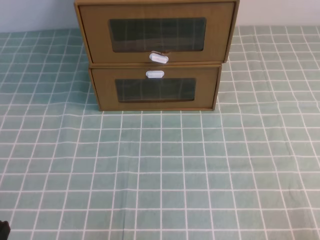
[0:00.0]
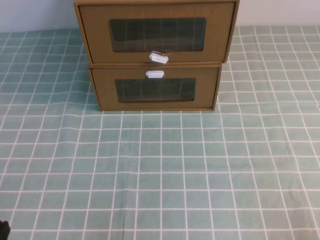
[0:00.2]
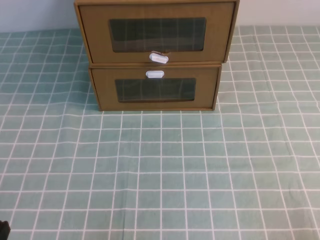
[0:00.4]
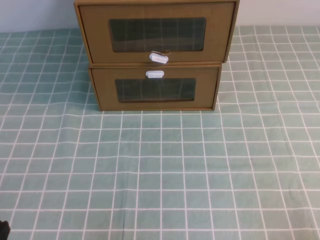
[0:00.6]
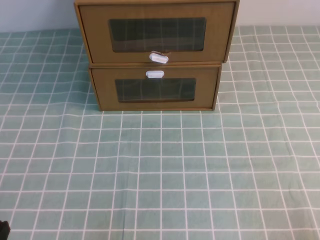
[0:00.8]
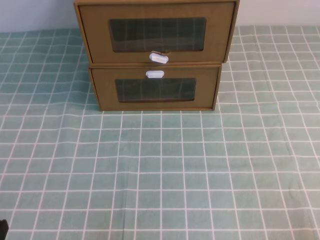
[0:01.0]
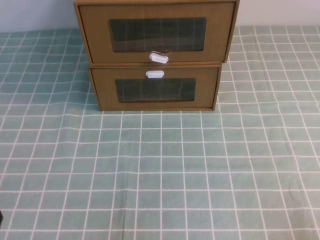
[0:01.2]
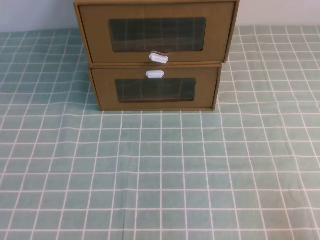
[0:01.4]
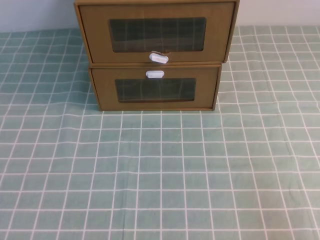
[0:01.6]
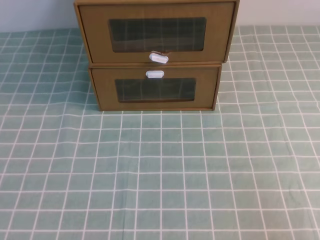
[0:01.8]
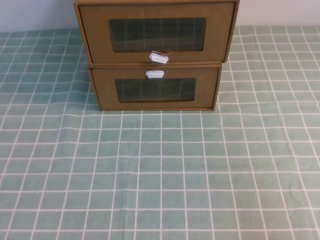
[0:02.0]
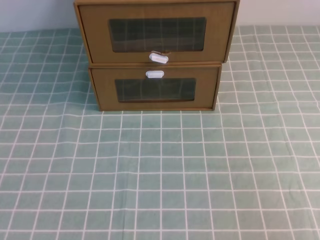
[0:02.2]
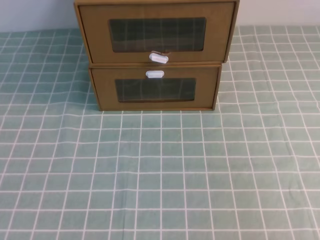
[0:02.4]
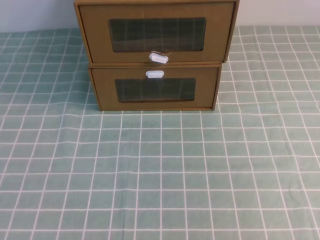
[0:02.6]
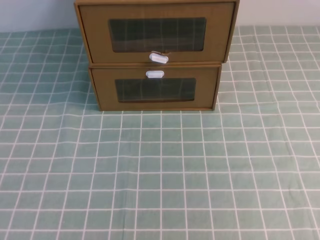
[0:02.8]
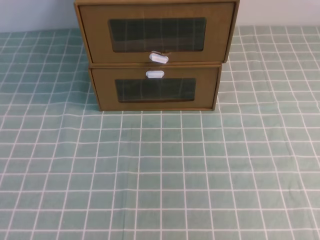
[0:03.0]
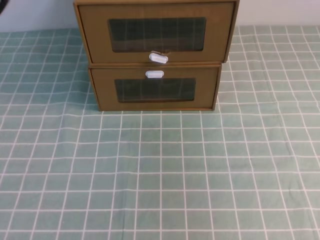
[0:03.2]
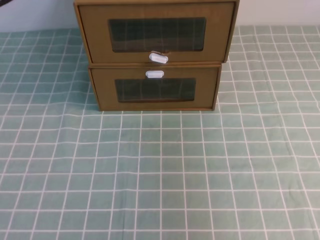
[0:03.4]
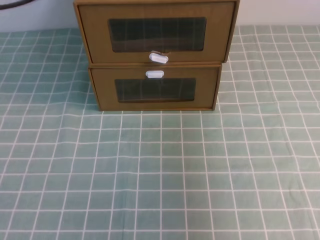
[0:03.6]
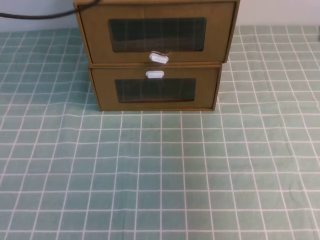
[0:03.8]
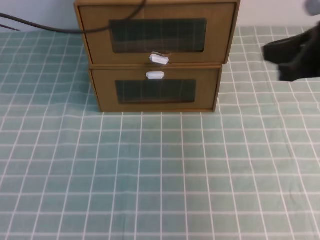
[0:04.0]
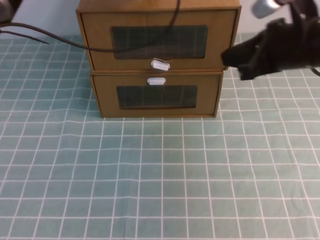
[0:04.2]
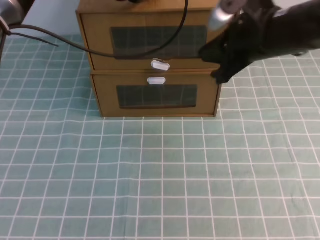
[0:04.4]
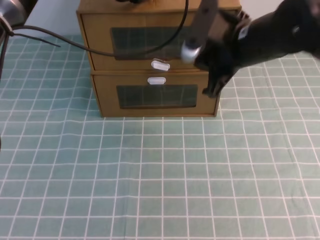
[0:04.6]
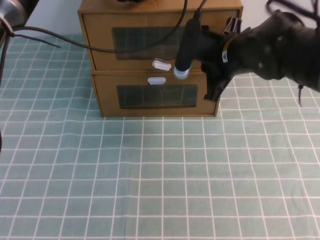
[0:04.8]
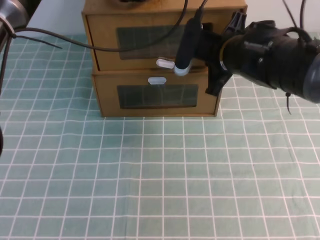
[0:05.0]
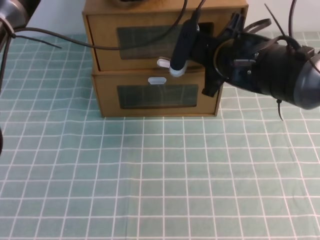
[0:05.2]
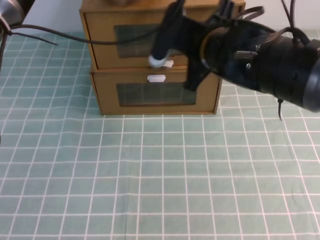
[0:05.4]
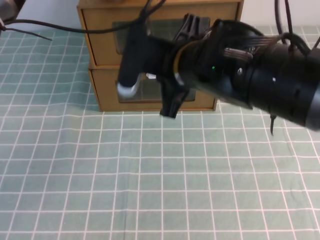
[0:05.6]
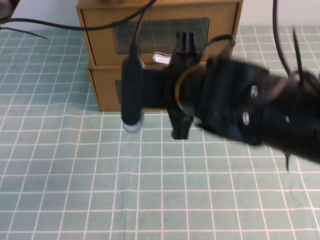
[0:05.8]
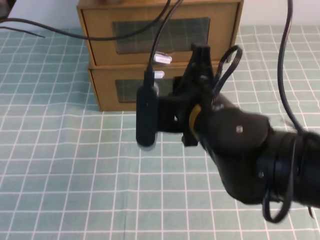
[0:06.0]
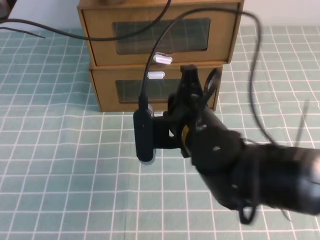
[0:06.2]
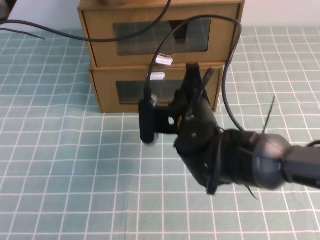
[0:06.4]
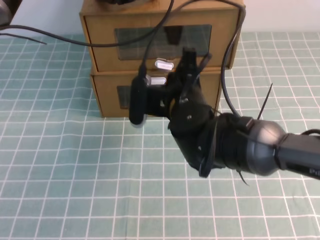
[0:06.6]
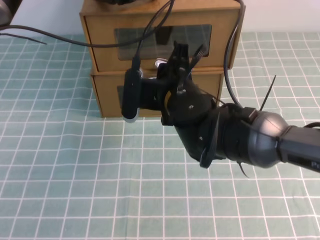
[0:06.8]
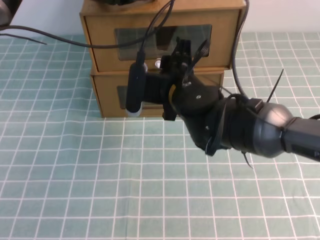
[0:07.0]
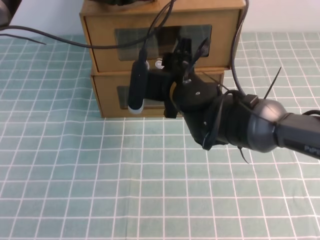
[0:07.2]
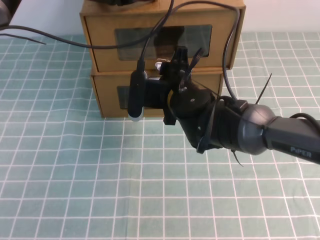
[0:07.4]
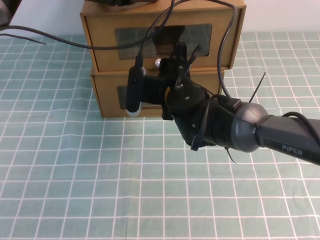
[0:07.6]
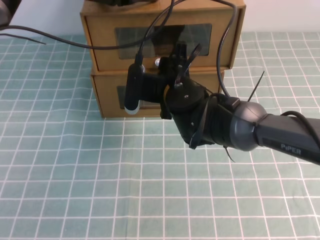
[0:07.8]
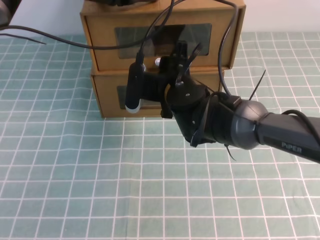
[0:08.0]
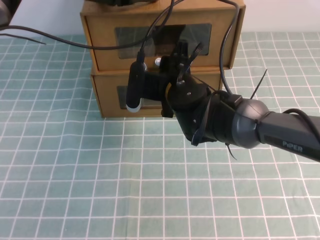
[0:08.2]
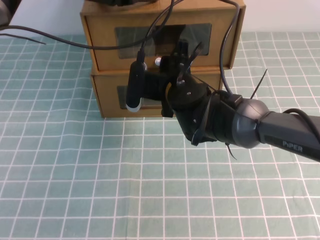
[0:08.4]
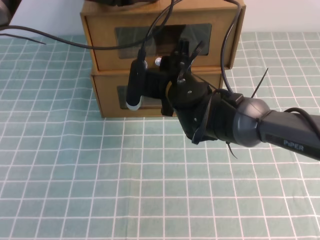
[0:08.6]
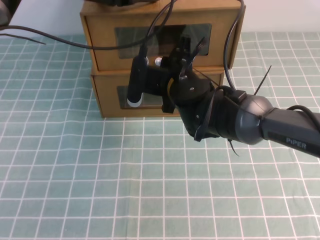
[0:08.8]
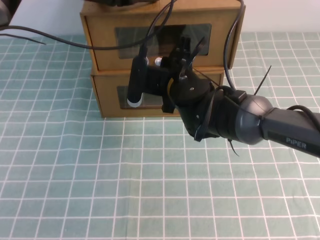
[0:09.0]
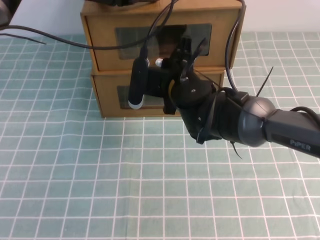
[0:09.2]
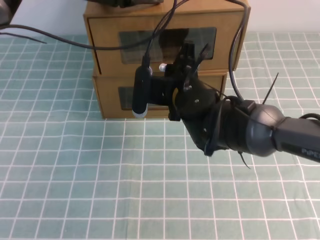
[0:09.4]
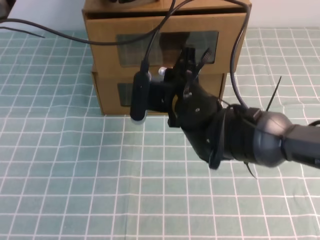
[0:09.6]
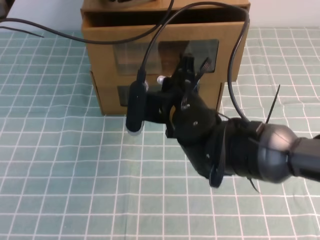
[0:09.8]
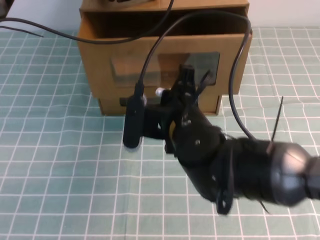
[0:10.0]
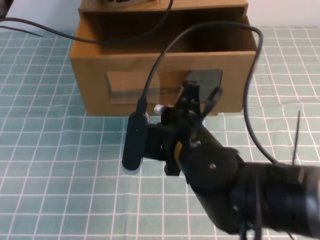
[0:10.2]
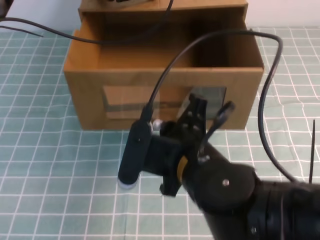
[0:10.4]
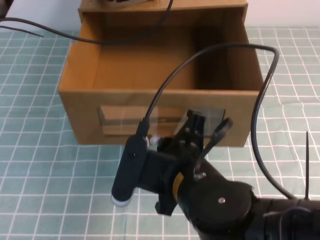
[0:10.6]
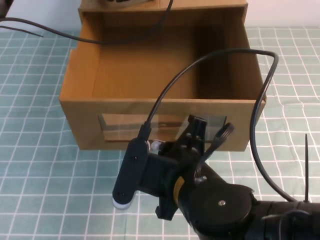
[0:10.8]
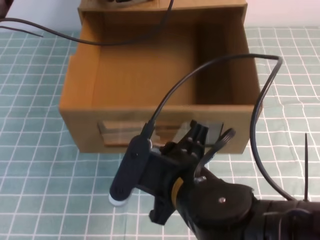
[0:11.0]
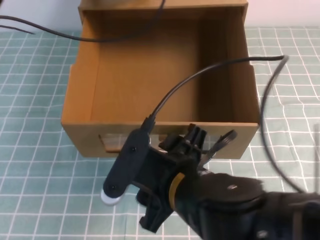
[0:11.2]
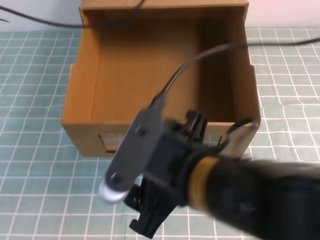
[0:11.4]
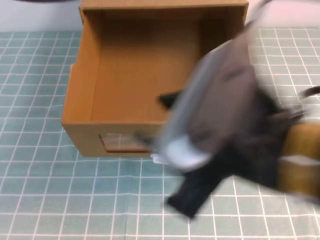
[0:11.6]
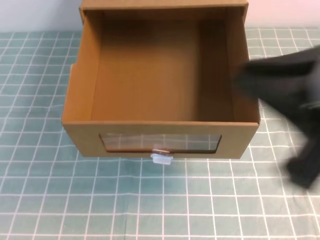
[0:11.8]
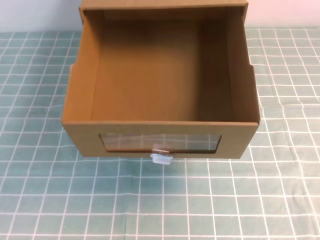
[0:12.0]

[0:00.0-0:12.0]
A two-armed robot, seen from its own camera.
Task of the whole recording: open the shoebox on the cyan tablecloth.
3.0 to 4.4 s: The left gripper moves forward and to the right, about 40 cm. Meanwhile the right gripper shifts roughly 35 cm forward, to the left and downward.
4.4 to 6.0 s: The right gripper heads to the left and backward, covering roughly 15 cm.
6.0 to 7.6 s: The right gripper is displaced forward and downward by roughly 15 cm, and opens up.
7.6 to 9.0 s: The right gripper closes its fingers.
9.0 to 10.4 s: The right gripper goes roughly 20 cm backward.
10.4 to 12.0 s: The right gripper shifts roughly 30 cm to the right, upward and backward, and opens, then closes once more. The left gripper heads backward and upward, covering roughly 35 cm.

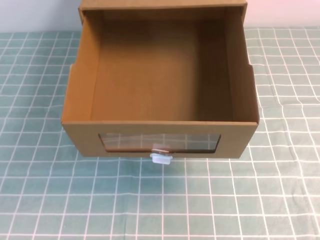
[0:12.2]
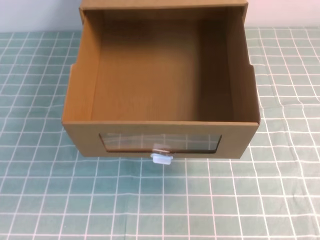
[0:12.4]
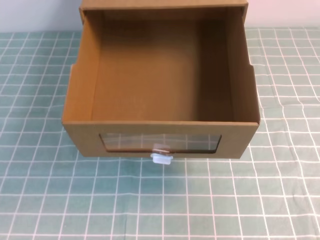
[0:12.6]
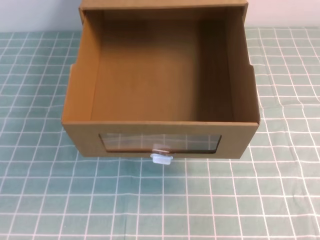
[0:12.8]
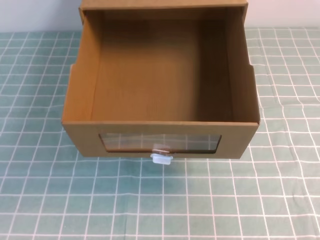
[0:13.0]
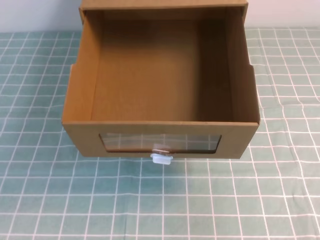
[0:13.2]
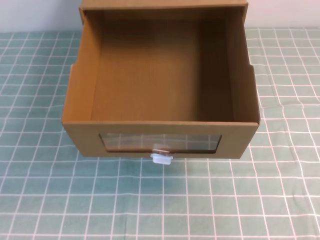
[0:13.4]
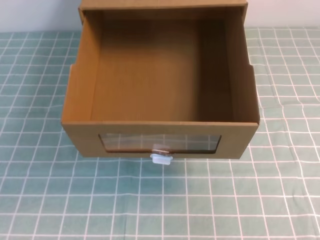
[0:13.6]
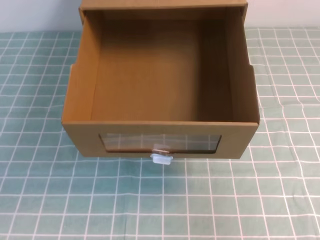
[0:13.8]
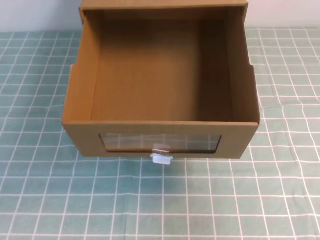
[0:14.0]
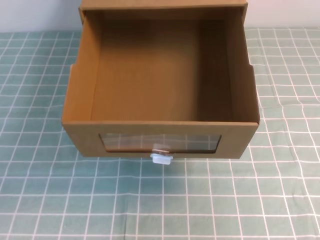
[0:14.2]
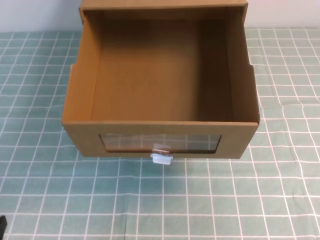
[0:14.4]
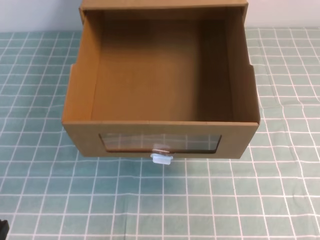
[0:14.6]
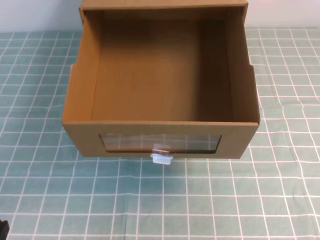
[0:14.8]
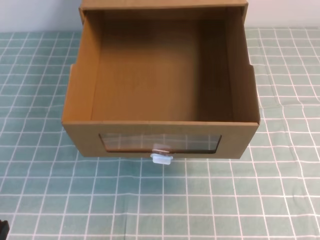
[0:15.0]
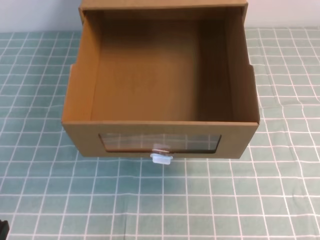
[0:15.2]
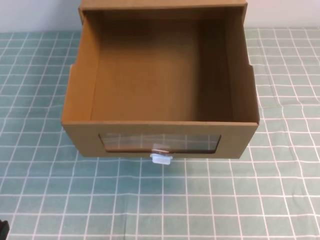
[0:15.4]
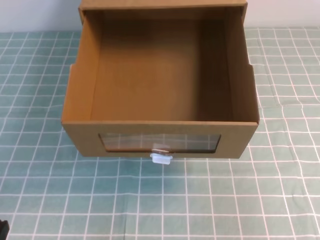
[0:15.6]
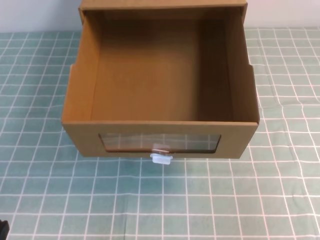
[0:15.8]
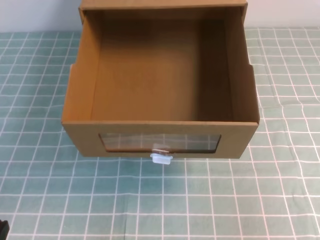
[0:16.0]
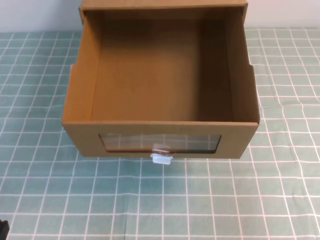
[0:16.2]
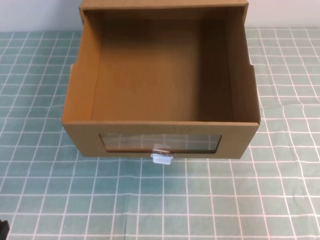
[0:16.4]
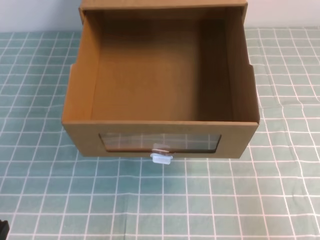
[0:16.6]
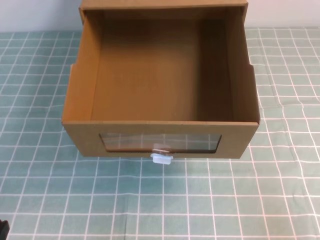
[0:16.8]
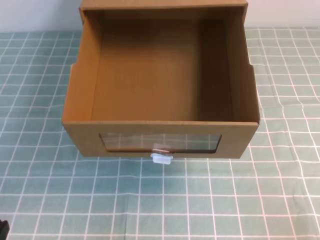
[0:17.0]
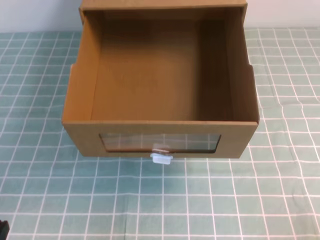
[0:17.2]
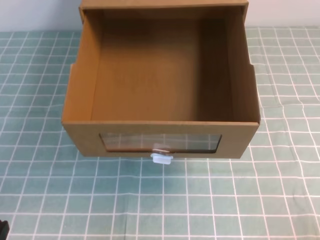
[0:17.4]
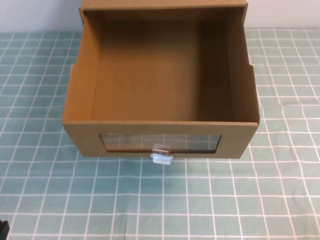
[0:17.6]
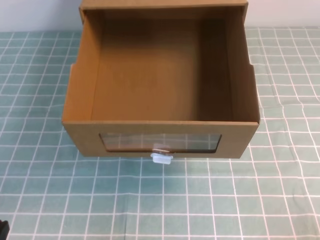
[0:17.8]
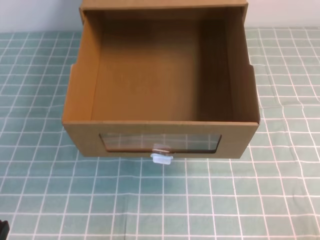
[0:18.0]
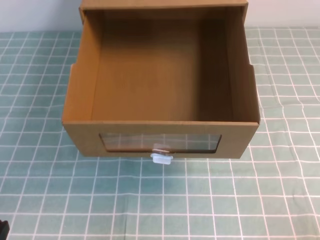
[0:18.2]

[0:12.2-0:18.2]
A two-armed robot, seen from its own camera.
Task of the whole recording: open the shoebox on the cyan tablecloth.
12.2 to 13.8 s: The right gripper goes about 5 cm downward; the left gripper travels downward by approximately 25 cm.
16.6 to 18.2 s: The right gripper moves downward, approximately 10 cm.

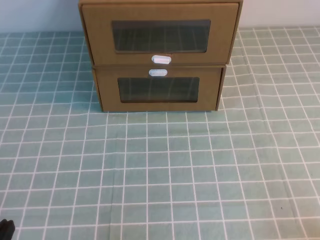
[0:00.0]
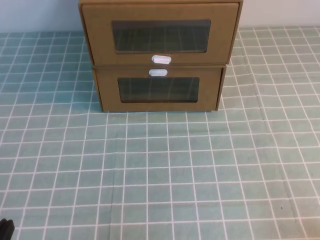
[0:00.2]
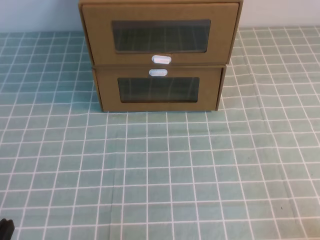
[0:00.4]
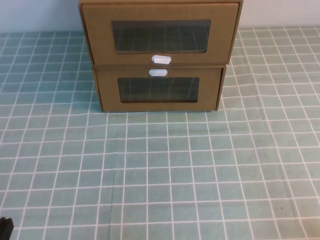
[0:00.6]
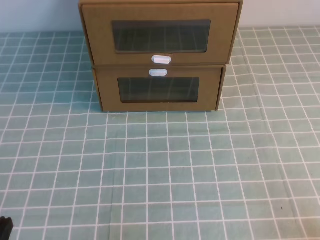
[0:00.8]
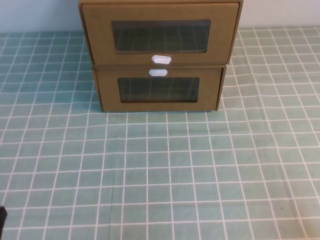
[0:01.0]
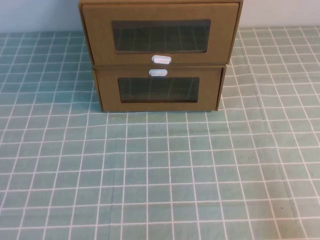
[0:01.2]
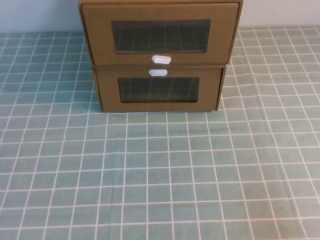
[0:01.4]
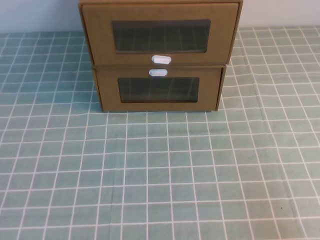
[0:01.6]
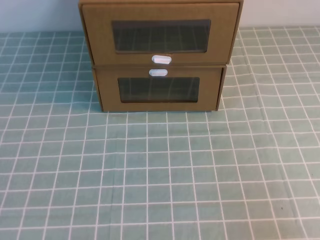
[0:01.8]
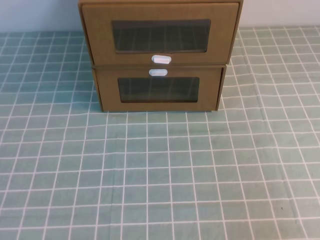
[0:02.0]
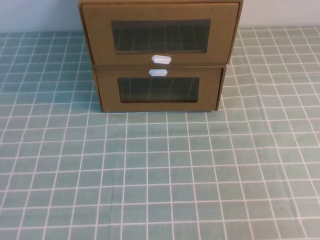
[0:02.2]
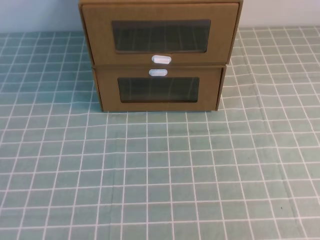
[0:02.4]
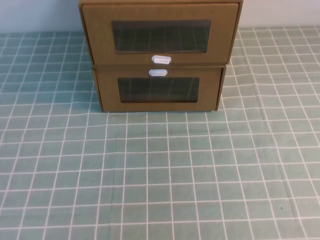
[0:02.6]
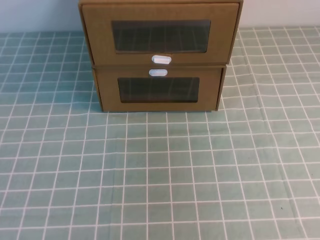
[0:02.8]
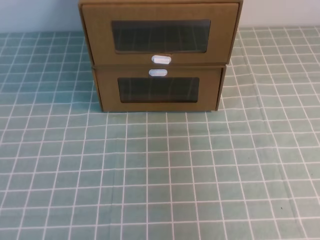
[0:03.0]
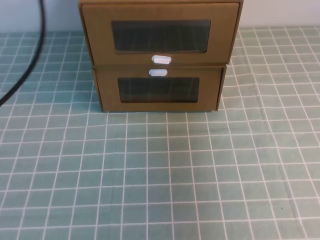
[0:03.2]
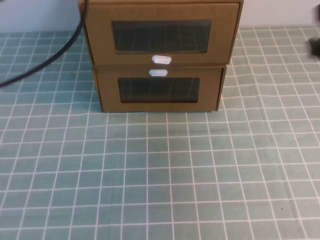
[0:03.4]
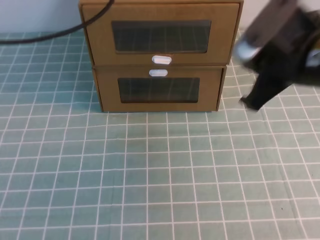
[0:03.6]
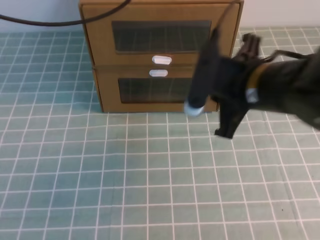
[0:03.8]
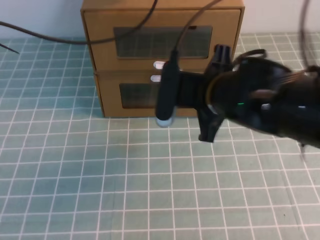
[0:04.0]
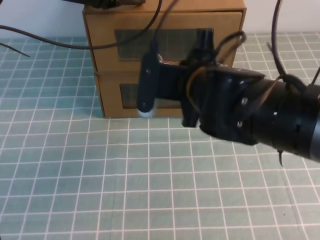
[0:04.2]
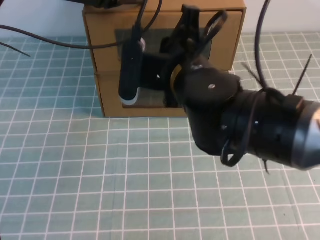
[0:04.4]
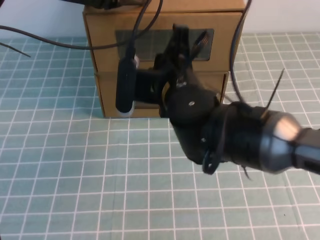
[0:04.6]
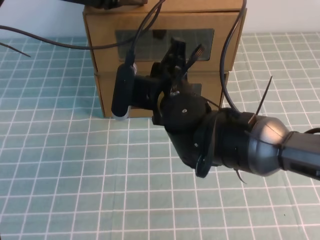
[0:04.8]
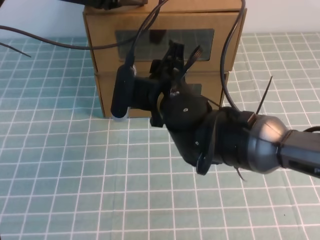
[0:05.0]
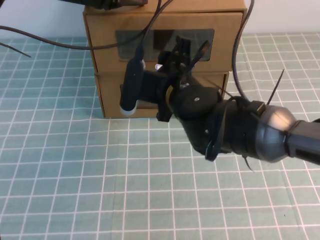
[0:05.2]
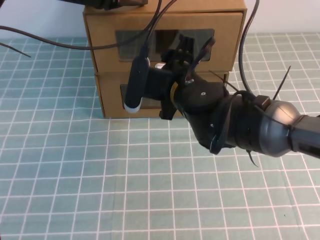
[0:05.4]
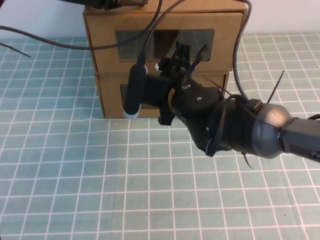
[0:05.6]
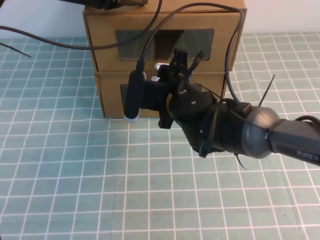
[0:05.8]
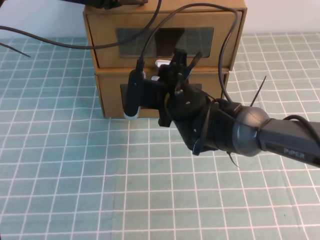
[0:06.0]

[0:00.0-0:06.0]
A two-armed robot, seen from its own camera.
Task of the whole recording: open the shoebox on the cyan tablecloth.
1.6 to 3.0 s: The left gripper is displaced upward and forward by about 25 cm. Meanwhile the right gripper is displaced upward by approximately 25 cm.
3.0 to 4.4 s: The right gripper shifts approximately 35 cm to the left, downward and forward; the left gripper is displaced forward, to the right and downward by roughly 30 cm.
4.4 to 6.0 s: The right gripper shifts approximately 10 cm downward and forward, and opens its fingers.
